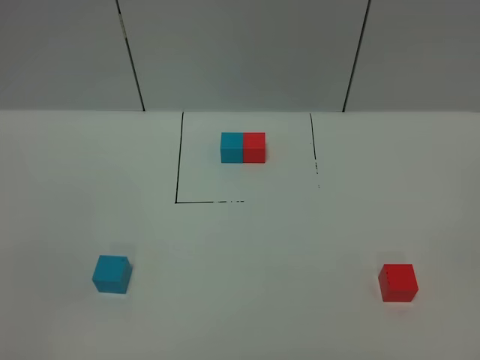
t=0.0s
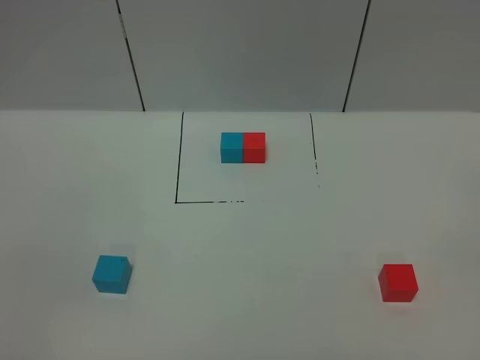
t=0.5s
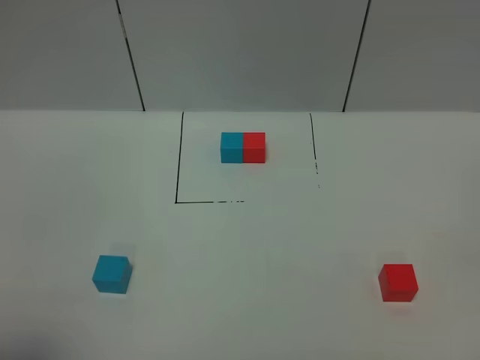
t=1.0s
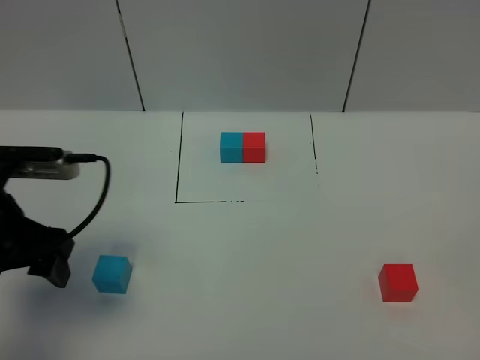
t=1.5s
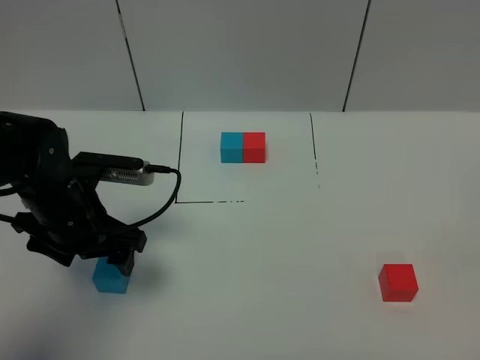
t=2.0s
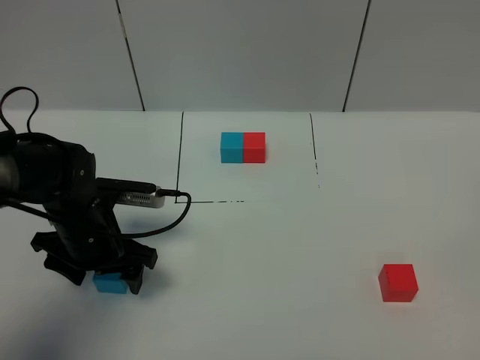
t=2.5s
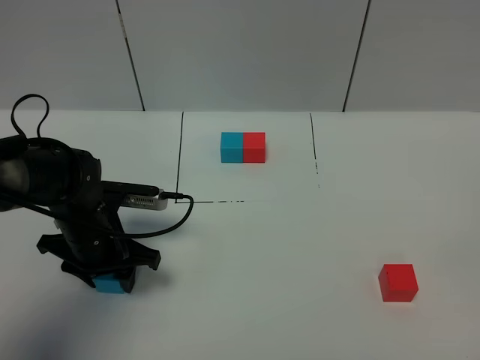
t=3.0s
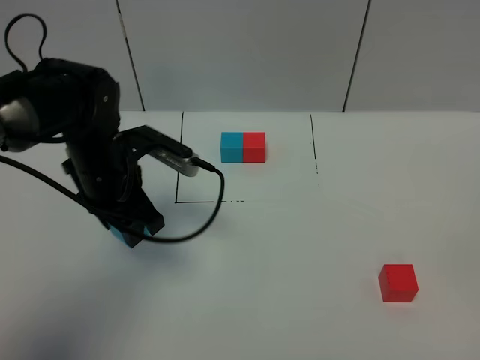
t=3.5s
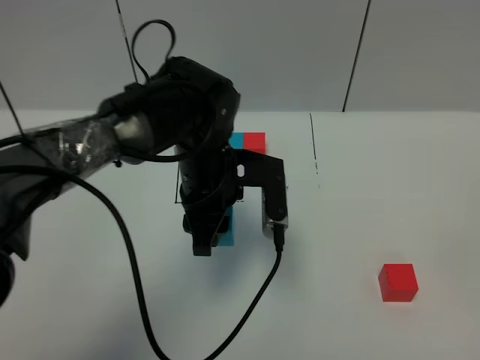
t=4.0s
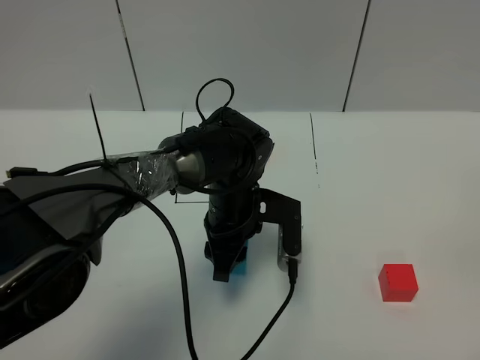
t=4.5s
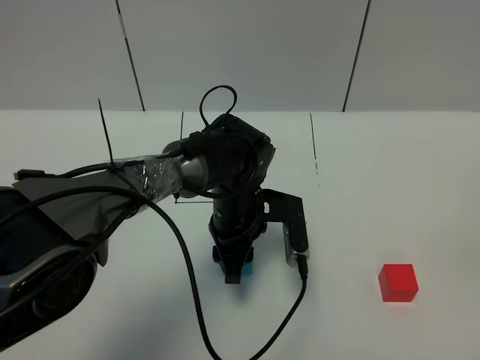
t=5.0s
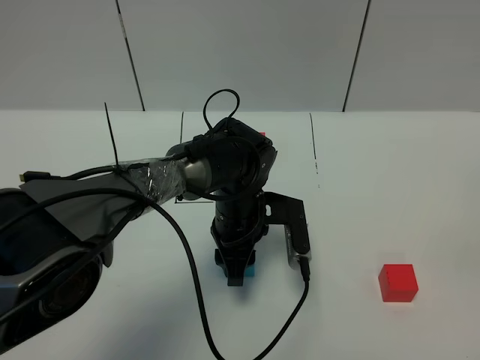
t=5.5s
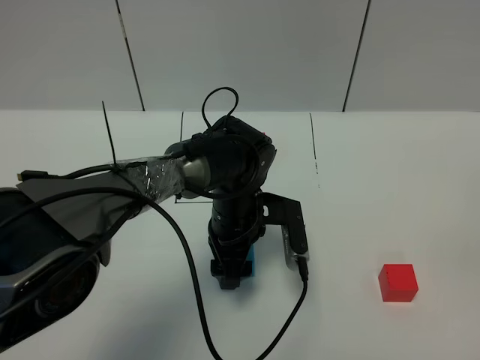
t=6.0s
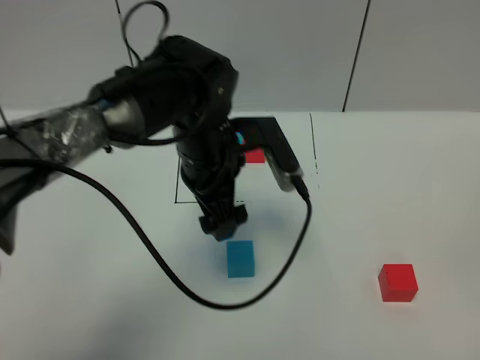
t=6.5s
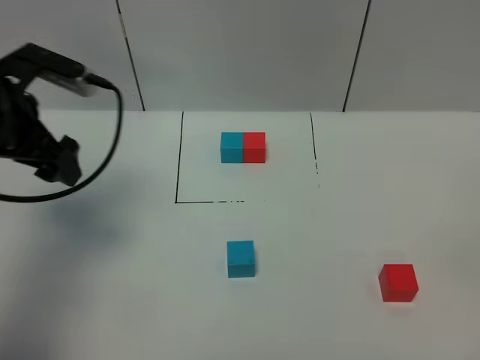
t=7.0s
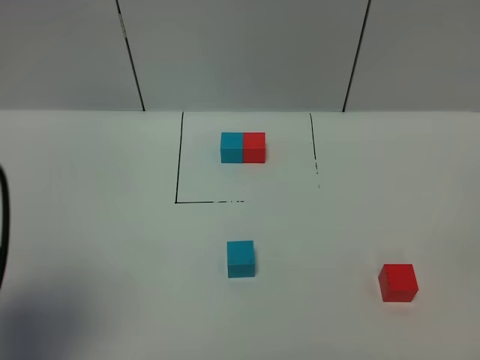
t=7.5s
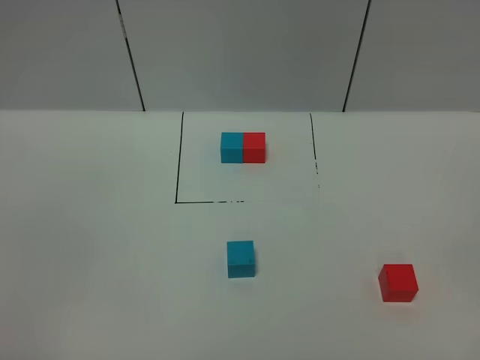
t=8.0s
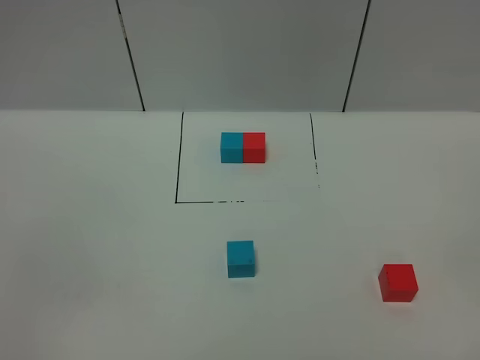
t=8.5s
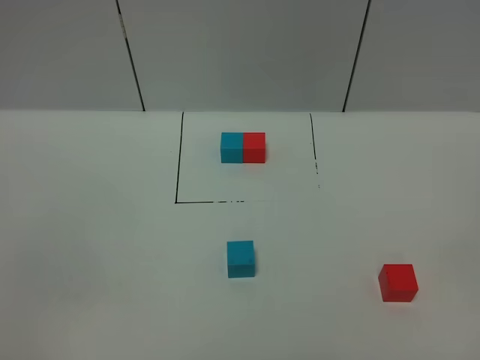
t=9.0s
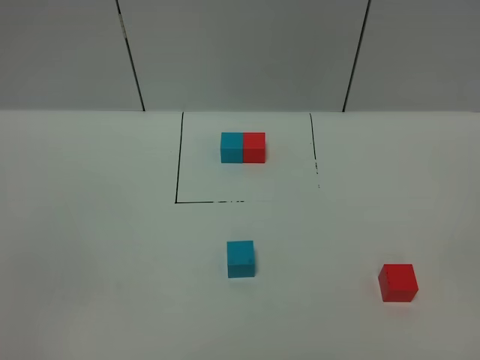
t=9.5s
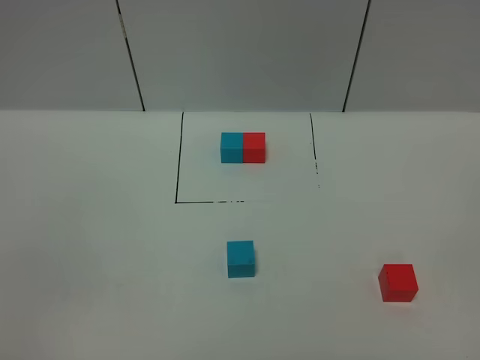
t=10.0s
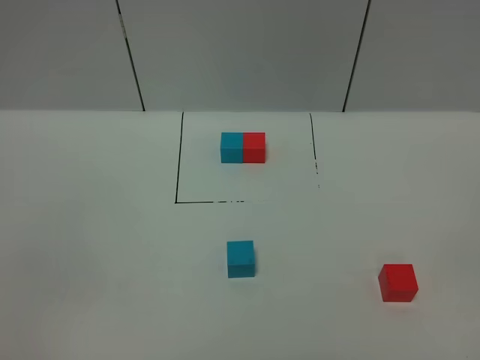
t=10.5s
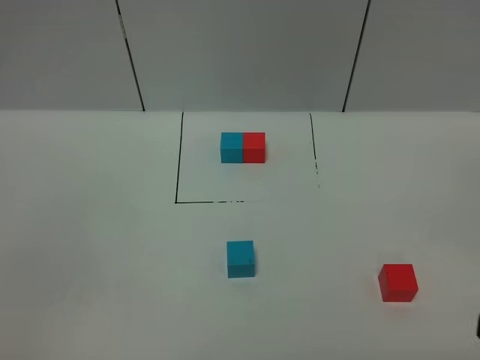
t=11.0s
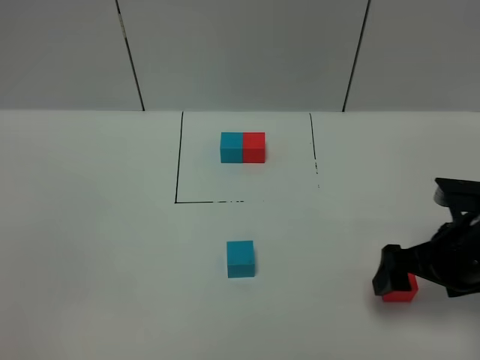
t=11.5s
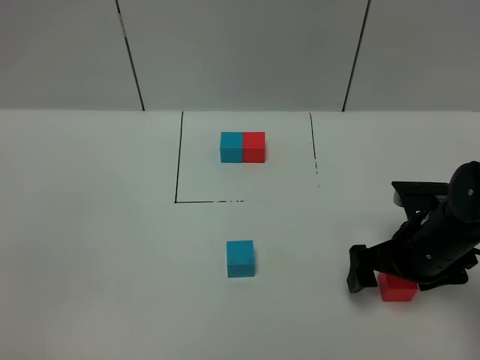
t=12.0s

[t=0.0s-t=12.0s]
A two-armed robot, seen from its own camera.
Task of the whole recording: According to the building block template in front, assemble the scattered blocks together.
Step, t=1.5s to t=6.0s: Put the blue cube in the center of the table.
t=0.0s to t=2.0s: The left gripper goes about 30 cm forward.
t=2.0s to t=4.0s: The left gripper travels to the right by roughly 15 cm, and closes its fingers.
t=4.0s to t=6.0s: The left gripper shifts about 5 cm downward, and opens its fingers.
t=6.0s to t=8.0s: The left gripper heads backward, to the left and upward, covering some 50 cm.
t=10.0s to t=12.0s: The right gripper shifts some 35 cm forward and downward.

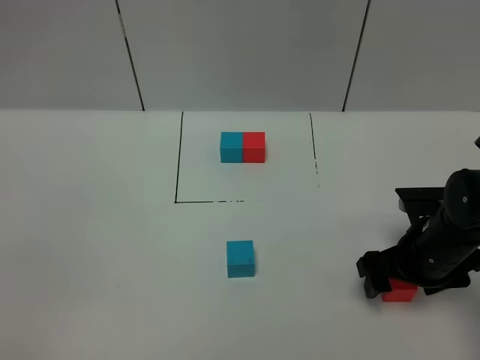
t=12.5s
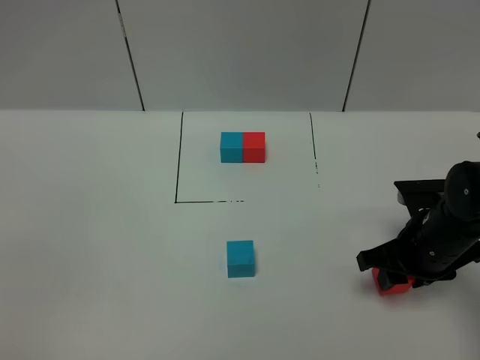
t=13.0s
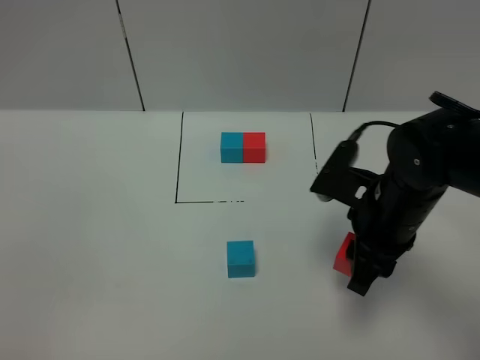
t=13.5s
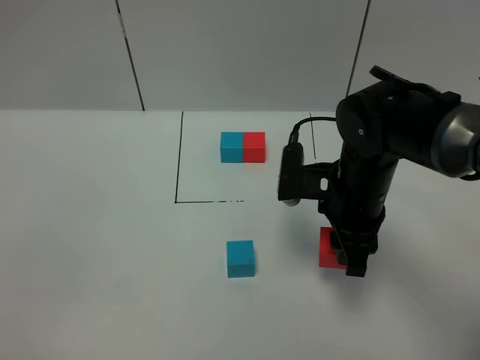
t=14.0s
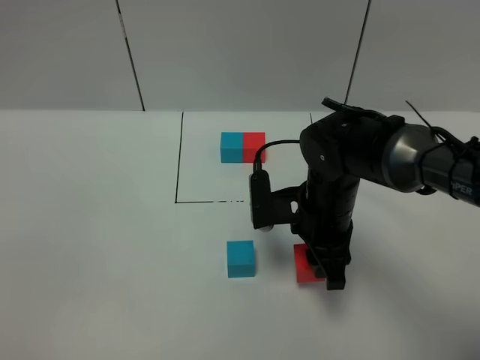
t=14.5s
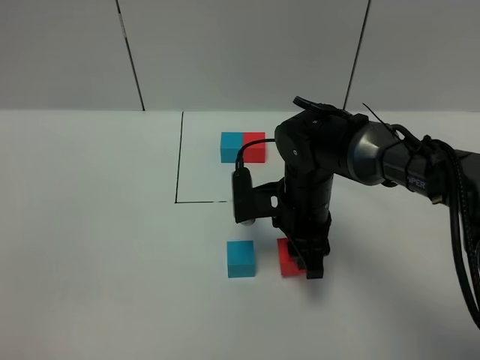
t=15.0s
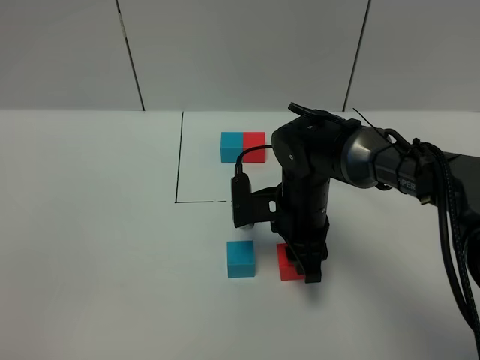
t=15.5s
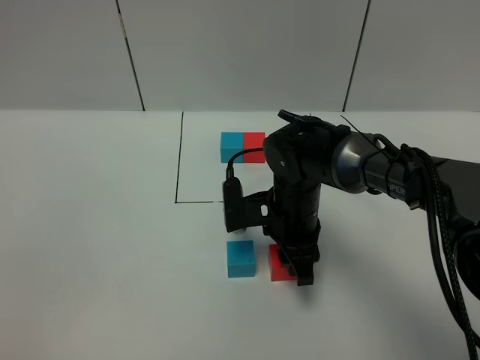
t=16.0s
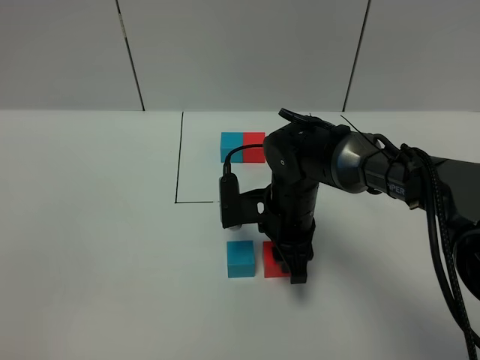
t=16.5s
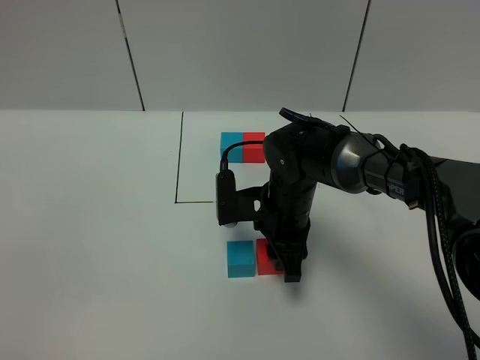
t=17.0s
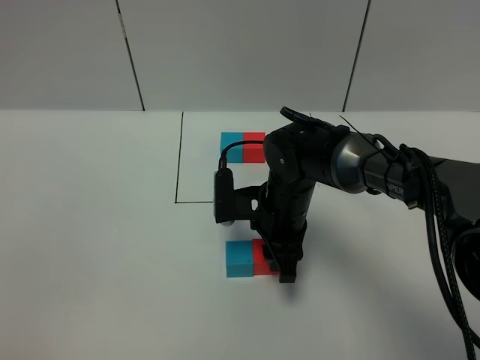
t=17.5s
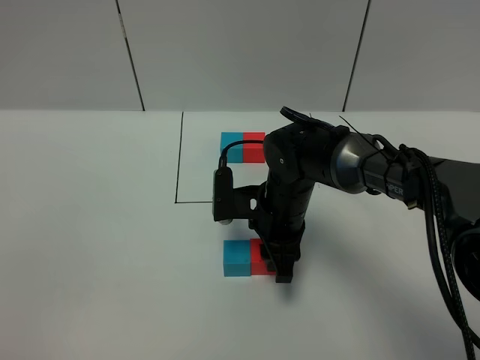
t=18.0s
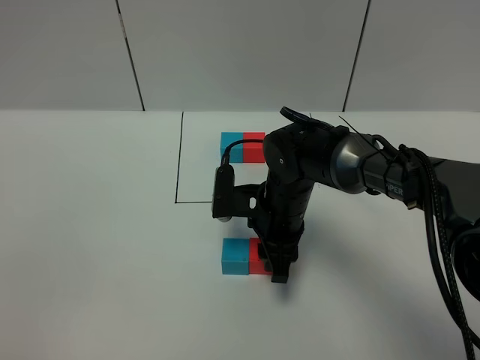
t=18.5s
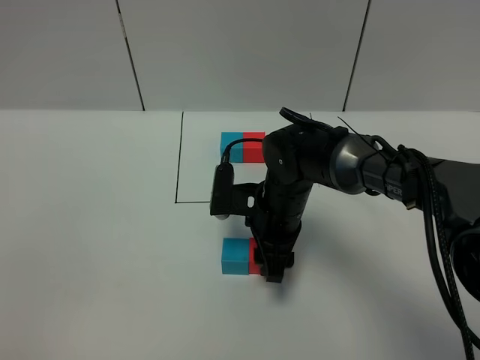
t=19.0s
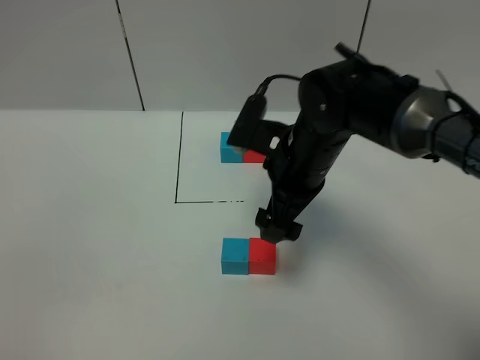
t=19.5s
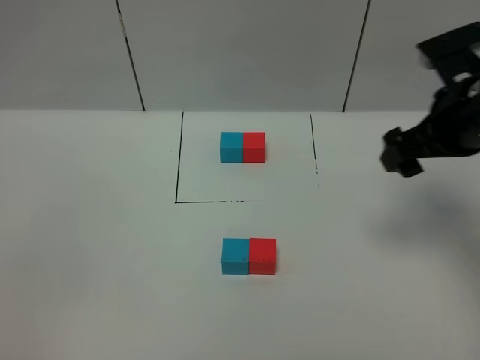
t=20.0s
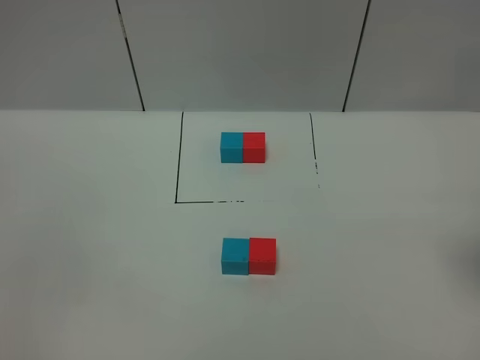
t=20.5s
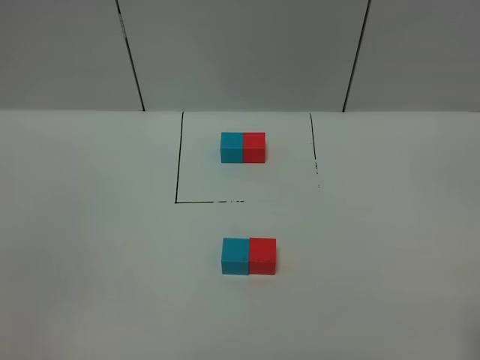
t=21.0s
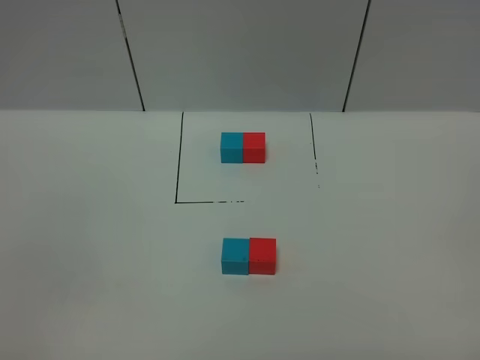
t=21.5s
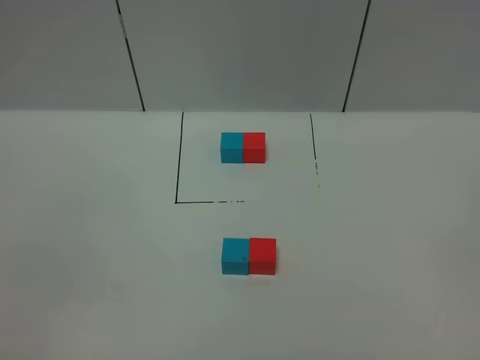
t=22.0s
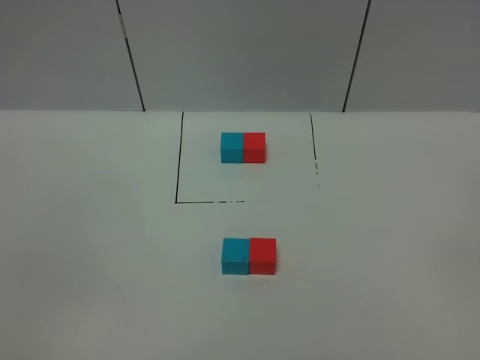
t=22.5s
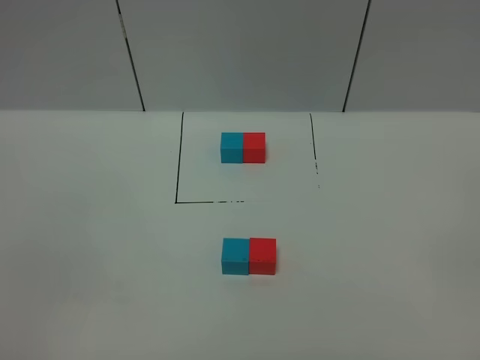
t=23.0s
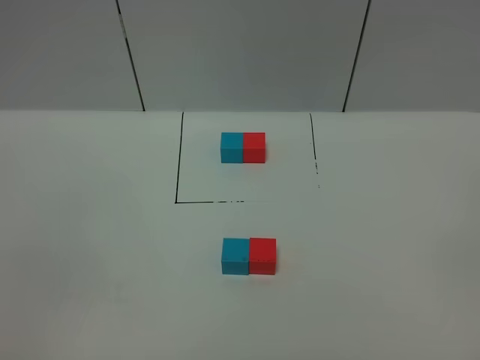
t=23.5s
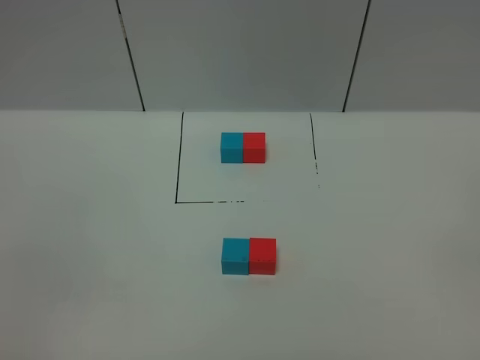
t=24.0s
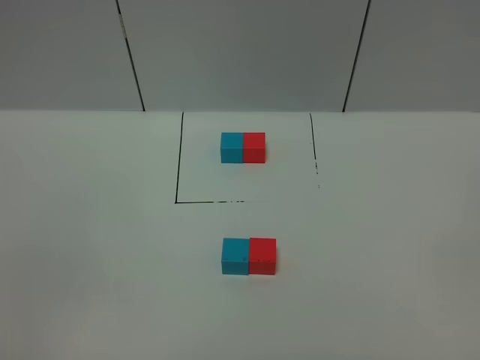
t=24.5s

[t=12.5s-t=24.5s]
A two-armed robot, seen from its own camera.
Task of the whole recording: According to the building block template in front, assemble the scattered blocks together.
Step, t=12.5s to t=19.0s: Put the red cube on the right of the blue cube.
t=12.5s to t=14.5s: The right gripper moves to the left, about 15 cm, and closes up.
t=14.5s to t=16.5s: The right gripper ends up some 5 cm from where it was.
t=16.5s to t=18.5s: The grippers move only a little.
t=18.5s to t=20.5s: The right gripper shifts approximately 35 cm to the right, upward and backward, and opens its fingers.
t=22.5s to t=24.5s: Both grippers stay about where they are.

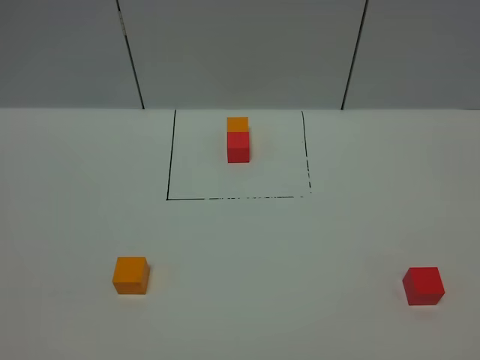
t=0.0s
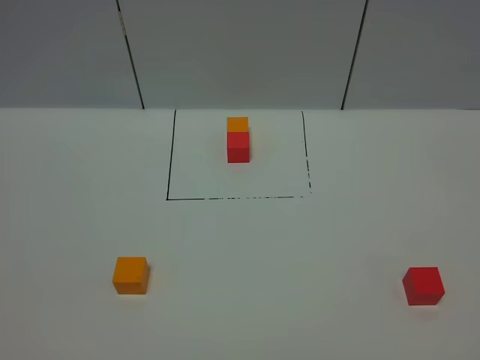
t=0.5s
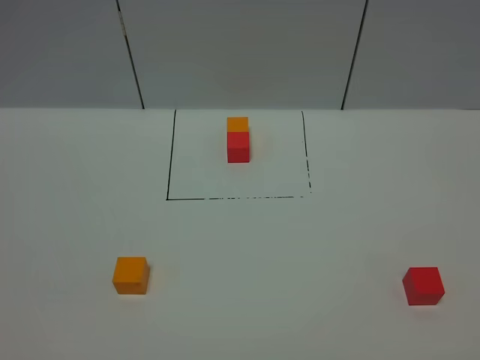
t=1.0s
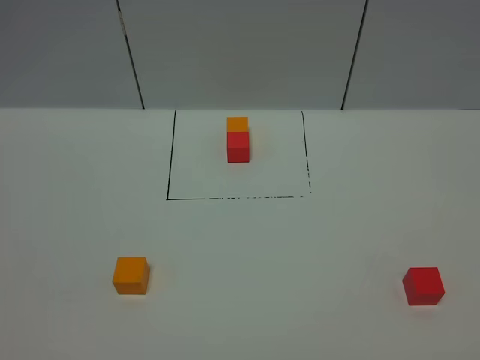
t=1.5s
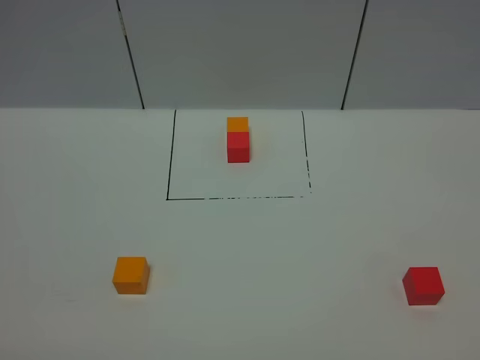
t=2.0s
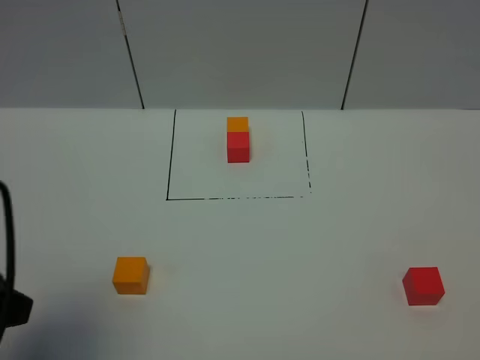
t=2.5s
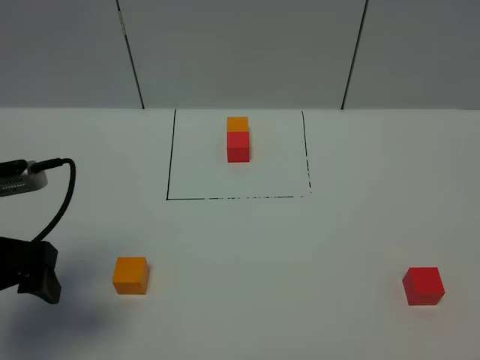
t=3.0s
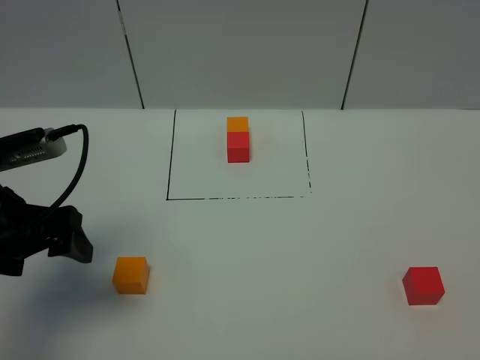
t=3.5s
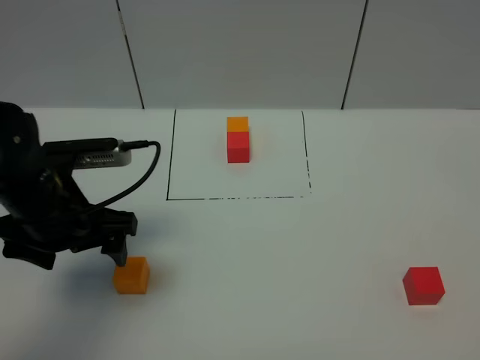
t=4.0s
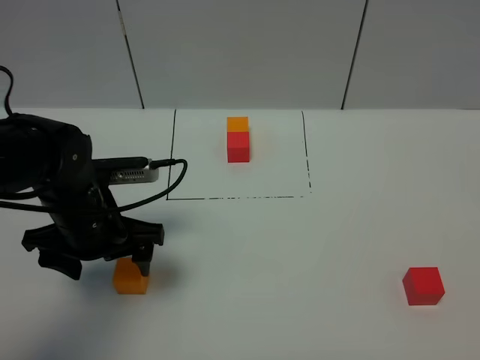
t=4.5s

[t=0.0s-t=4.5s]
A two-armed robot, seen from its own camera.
Task of the whole recording: According to the building block template in front, assemble the scattered blocks together.
t=2.0s to t=4.5s: The left gripper shifts about 30 cm forward and downward.
